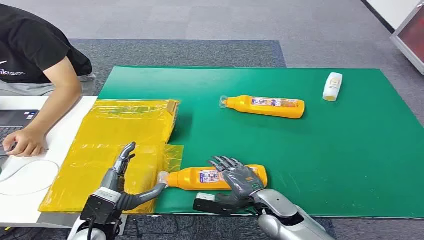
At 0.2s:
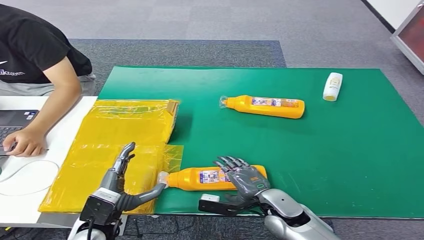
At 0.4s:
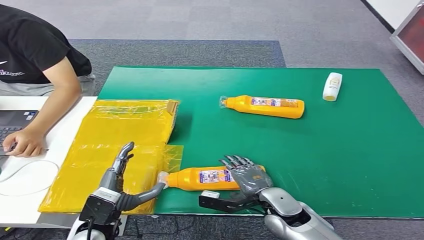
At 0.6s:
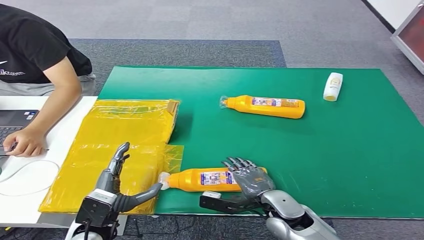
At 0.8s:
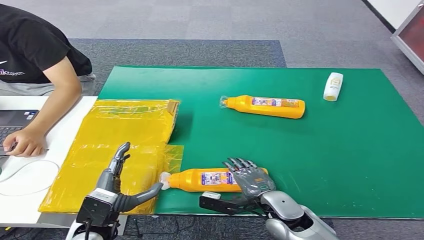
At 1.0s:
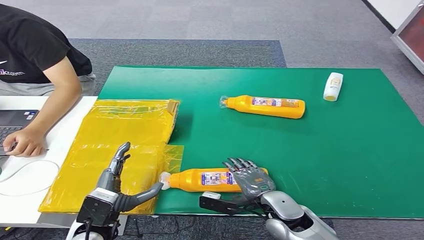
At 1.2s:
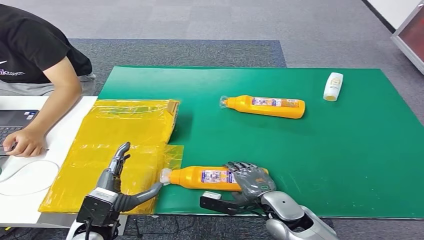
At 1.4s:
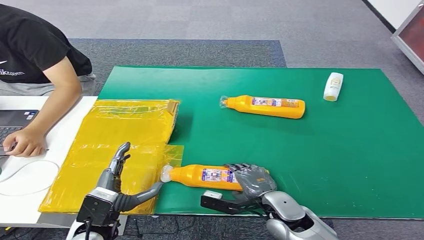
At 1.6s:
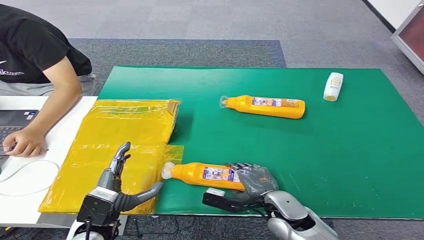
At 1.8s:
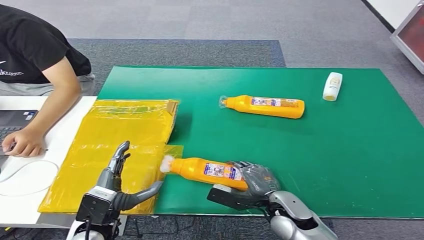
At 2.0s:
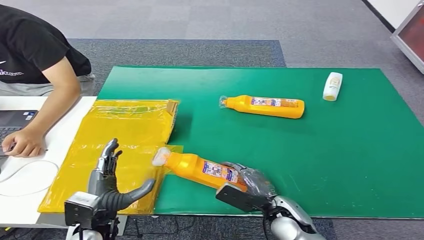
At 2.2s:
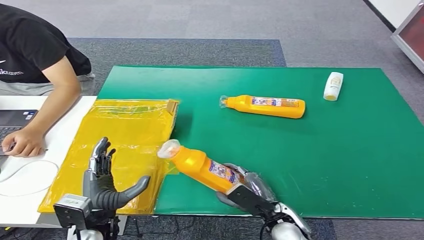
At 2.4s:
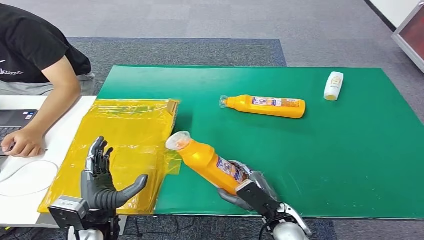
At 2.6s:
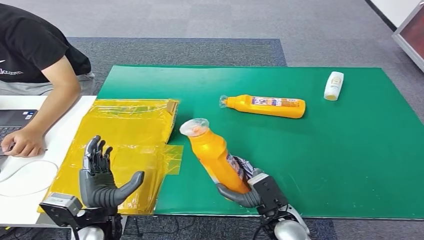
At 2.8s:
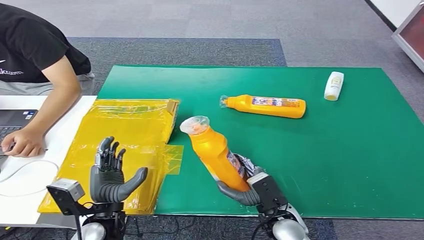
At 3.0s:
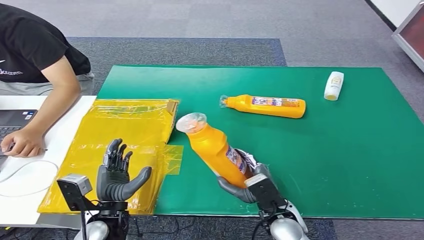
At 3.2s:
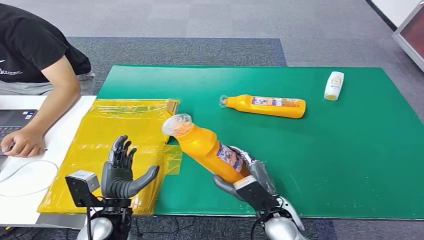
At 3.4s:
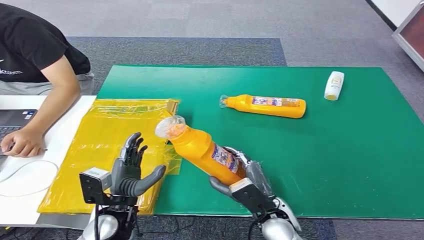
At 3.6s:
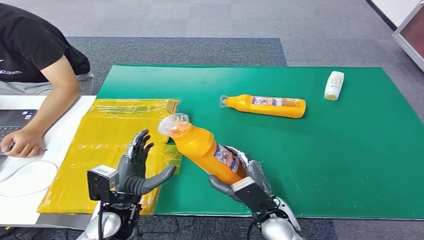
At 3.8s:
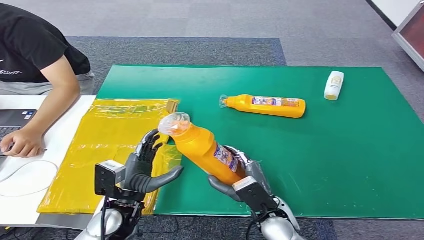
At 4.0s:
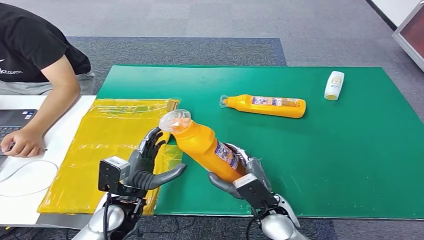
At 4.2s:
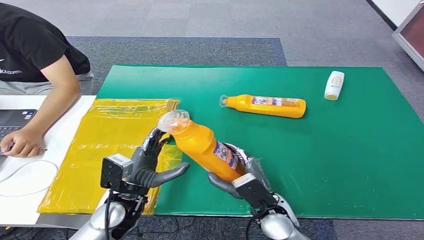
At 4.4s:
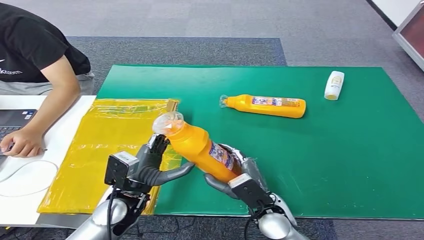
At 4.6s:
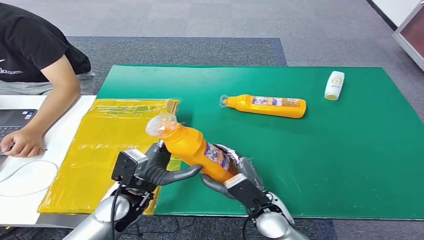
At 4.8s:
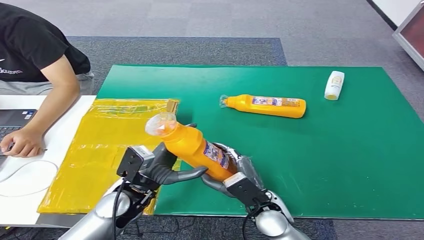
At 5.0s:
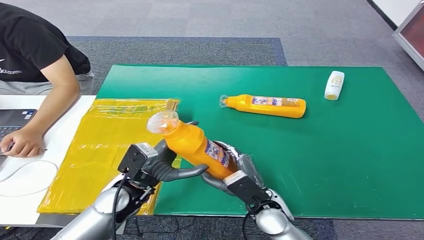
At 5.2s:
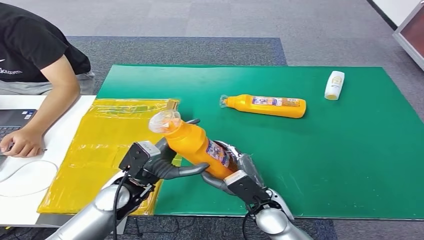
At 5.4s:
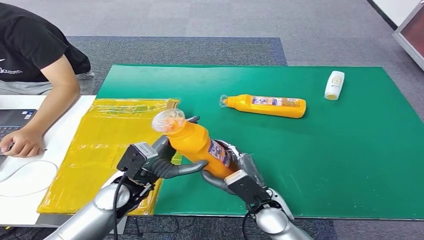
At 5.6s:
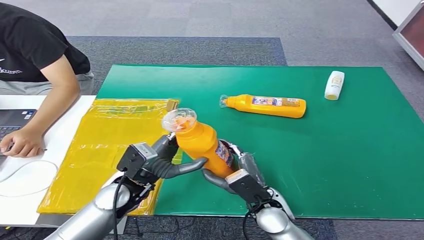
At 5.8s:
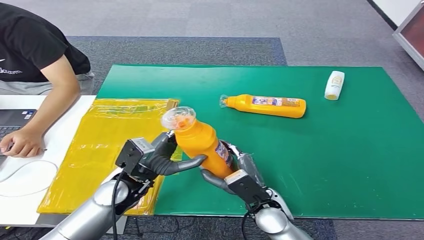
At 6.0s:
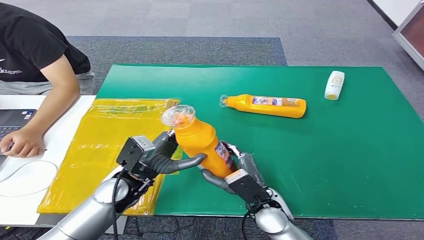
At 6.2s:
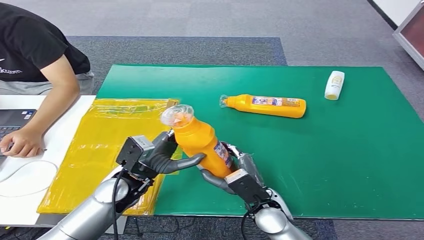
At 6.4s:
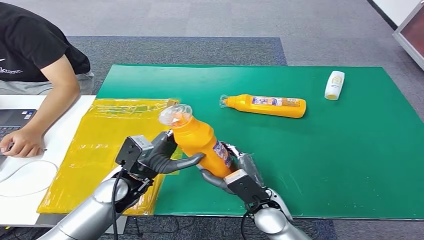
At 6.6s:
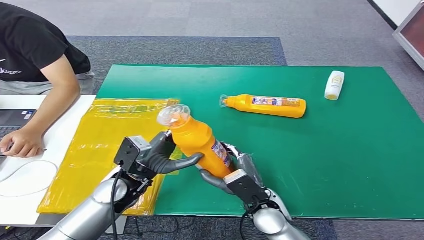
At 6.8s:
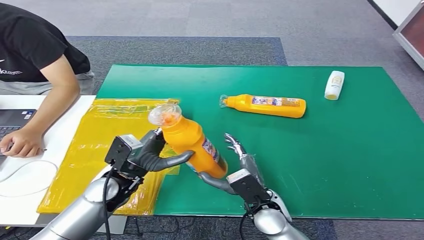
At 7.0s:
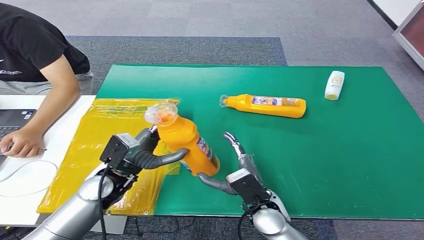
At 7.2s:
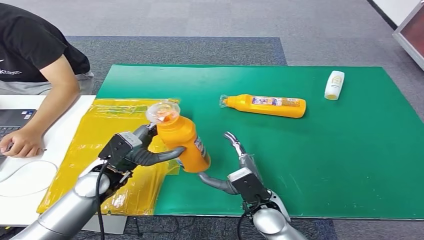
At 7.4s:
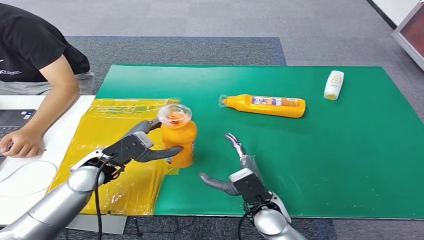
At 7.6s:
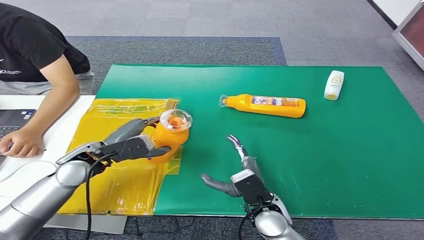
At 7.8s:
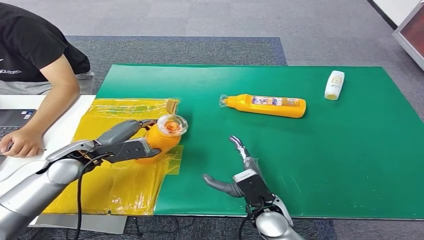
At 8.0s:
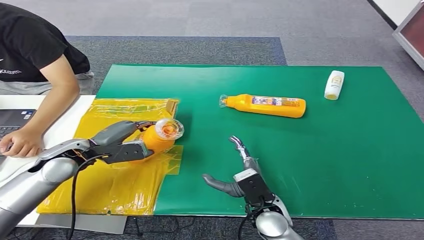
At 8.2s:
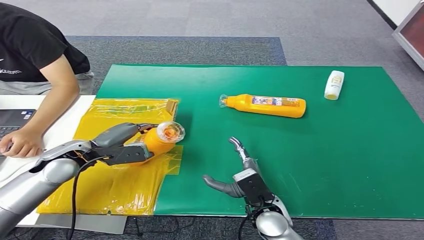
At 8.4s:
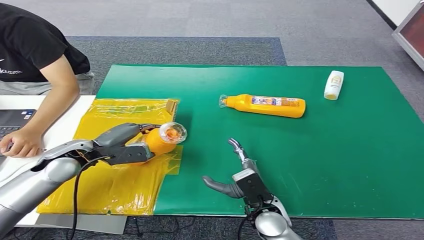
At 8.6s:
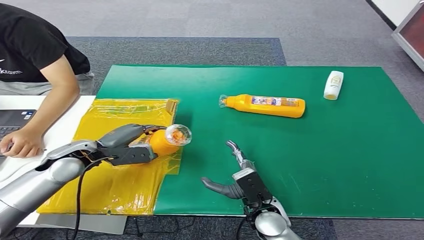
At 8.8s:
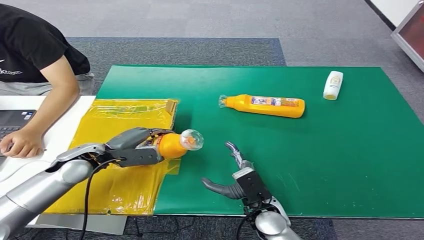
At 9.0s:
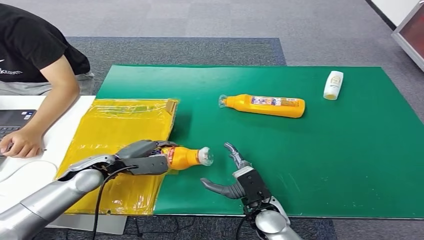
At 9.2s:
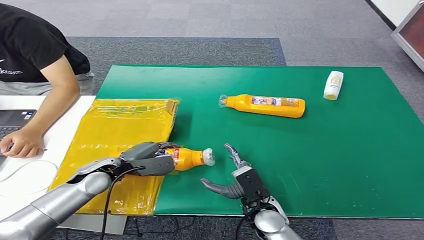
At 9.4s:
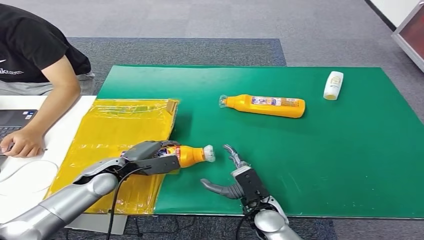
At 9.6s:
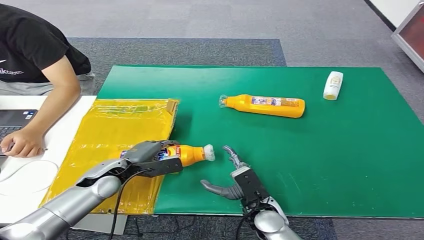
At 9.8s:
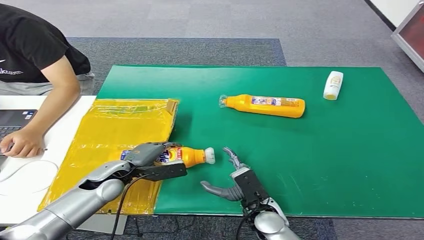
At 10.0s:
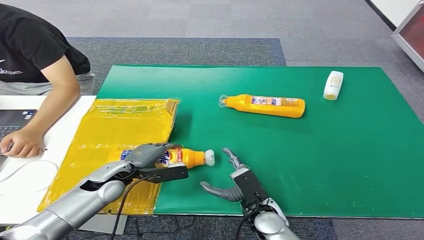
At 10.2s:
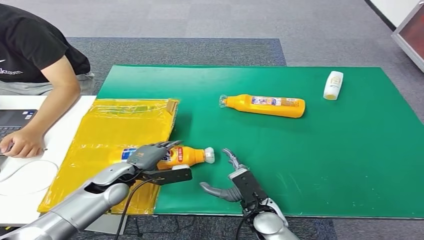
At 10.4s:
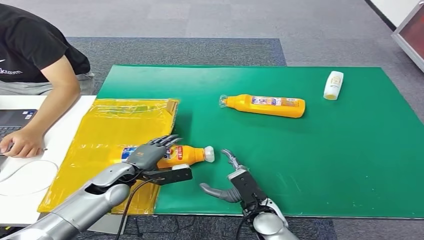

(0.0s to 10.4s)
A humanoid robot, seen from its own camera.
Step, 0.0s - 3.4s: Pick up the bottle from the table.
Step, 3.6s - 10.4s: Turn the bottle to the front side.
3.0s - 4.4s: The left hand moves approximately 5 cm.
4.4s - 6.0s: The hands move only a little.
6.0s - 7.4s: The left hand goes about 5 cm to the left.
7.4s - 9.0s: The left hand ends up about 5 cm from where it was.
9.0s - 10.4s: The left hand changes place by about 5 cm.

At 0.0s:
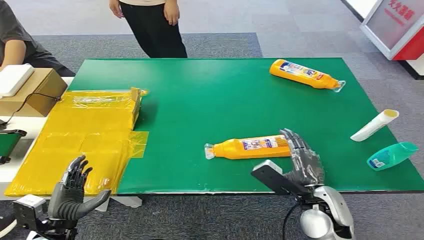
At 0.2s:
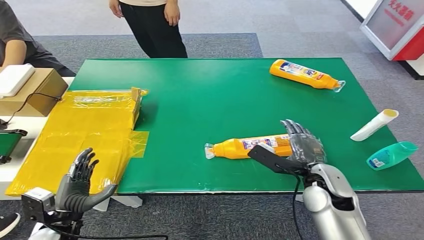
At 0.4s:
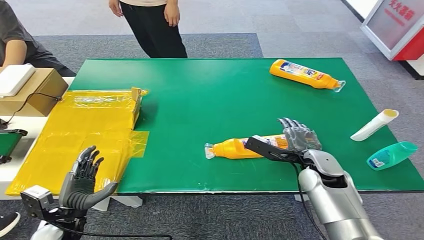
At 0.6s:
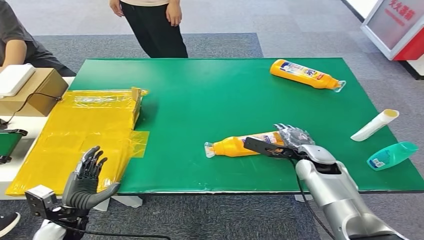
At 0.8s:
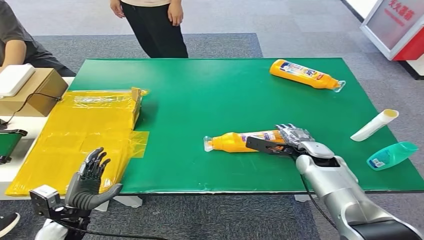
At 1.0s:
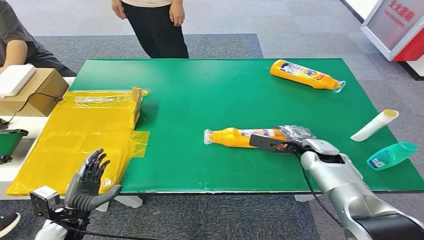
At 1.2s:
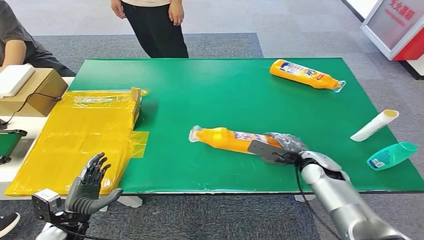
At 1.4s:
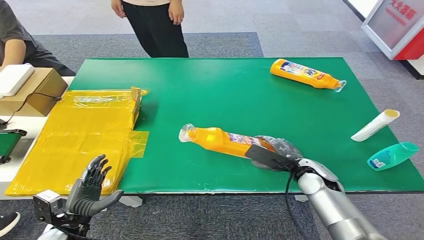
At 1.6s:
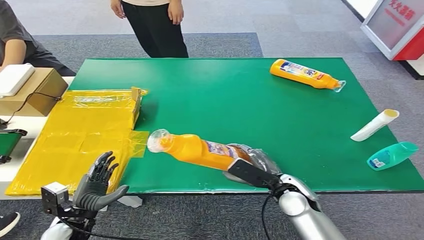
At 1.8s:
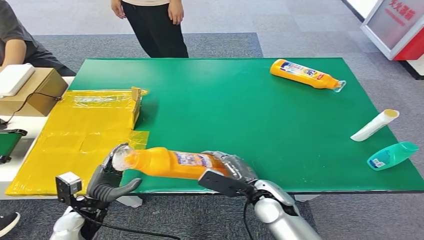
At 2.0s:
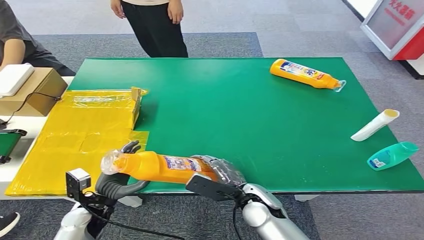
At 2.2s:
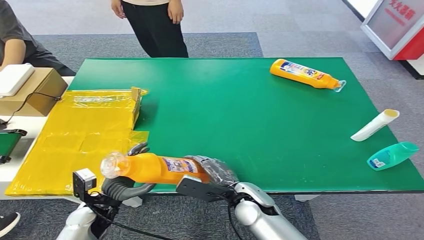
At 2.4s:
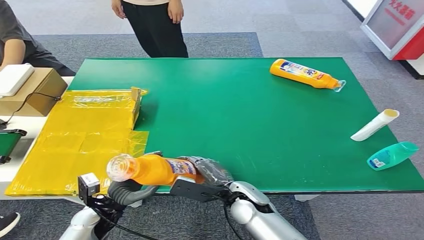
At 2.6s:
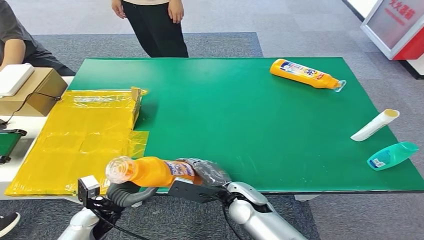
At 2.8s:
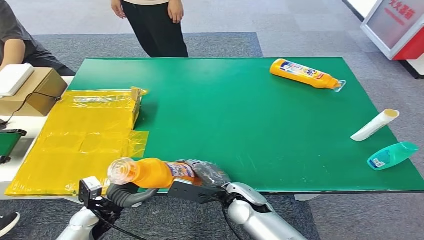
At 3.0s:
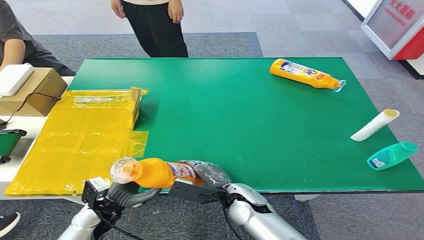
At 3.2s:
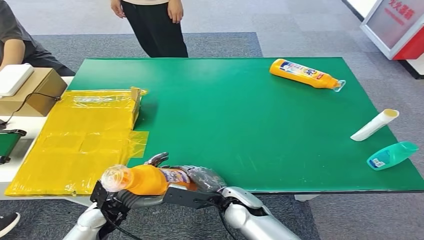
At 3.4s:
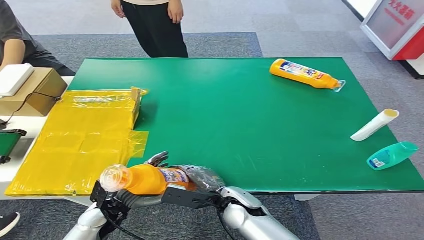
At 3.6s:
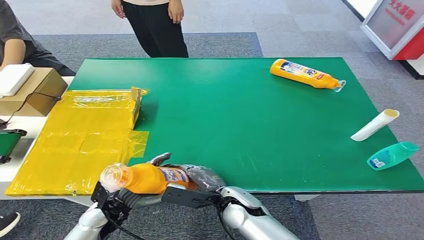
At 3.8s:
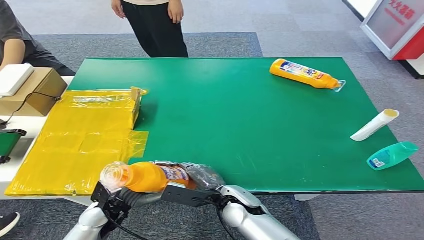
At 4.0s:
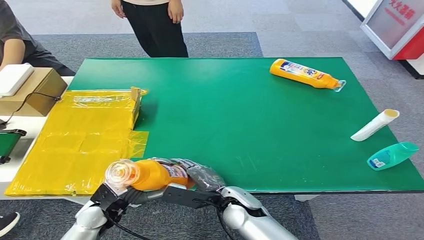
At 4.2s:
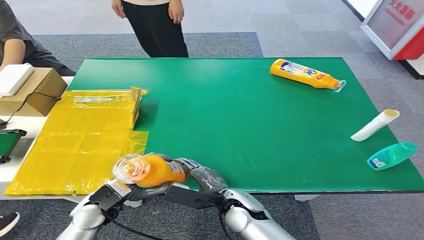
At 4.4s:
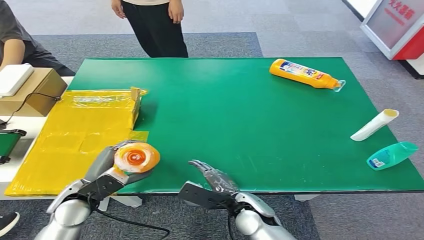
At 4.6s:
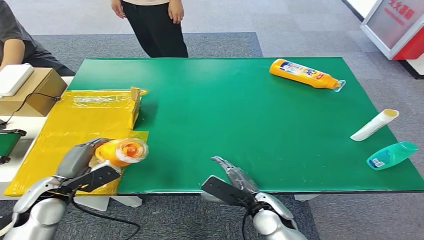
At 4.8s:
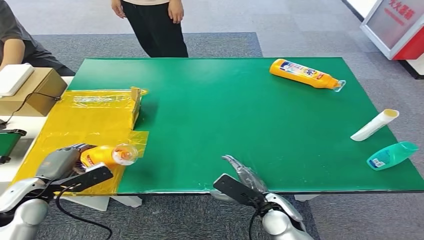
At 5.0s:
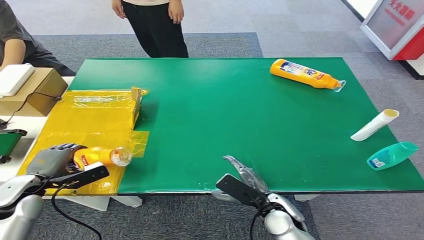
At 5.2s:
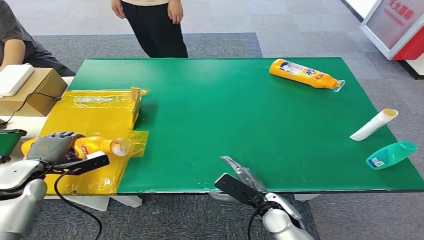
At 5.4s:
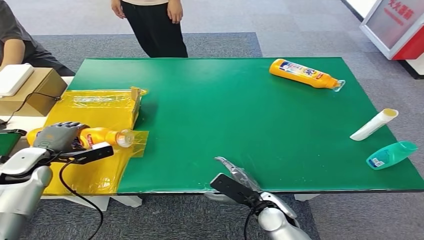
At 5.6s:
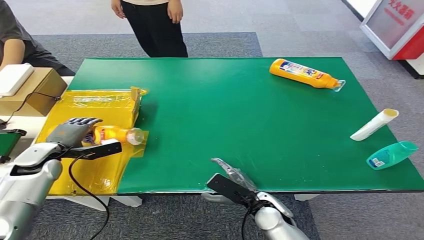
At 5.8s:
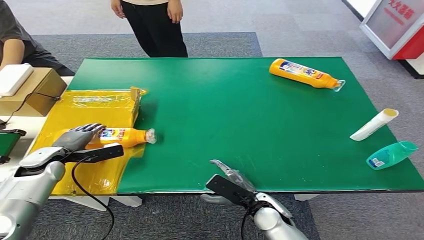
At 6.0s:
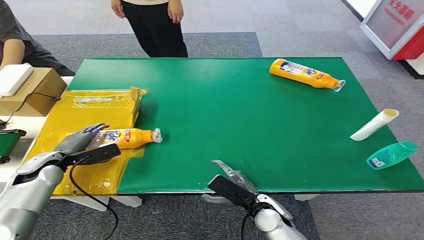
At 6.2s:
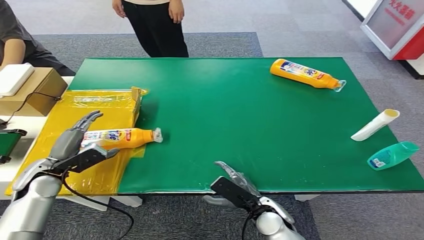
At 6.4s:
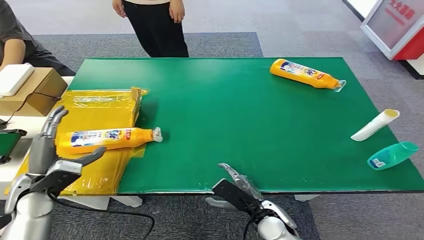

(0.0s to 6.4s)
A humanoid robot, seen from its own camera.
Step, 0.0s - 1.4s: Pick up the bottle from the table.
Step, 1.8s - 6.2s: Turn the bottle to the front side.
1.6s - 3.2s: The right hand goes some 10 cm to the left, while the left hand heads to the right, covering roughly 5 cm.
3.2s - 4.8s: The right hand goes roughly 10 cm to the right, while the left hand moves to the left and upward, approximately 15 cm.
4.8s - 6.4s: The left hand travels forward and back again, about 10 cm each way.
